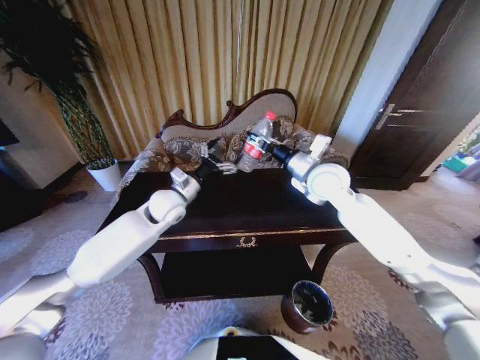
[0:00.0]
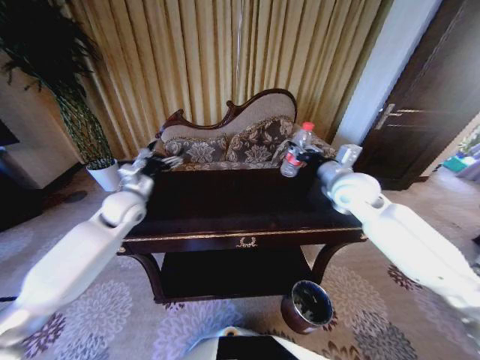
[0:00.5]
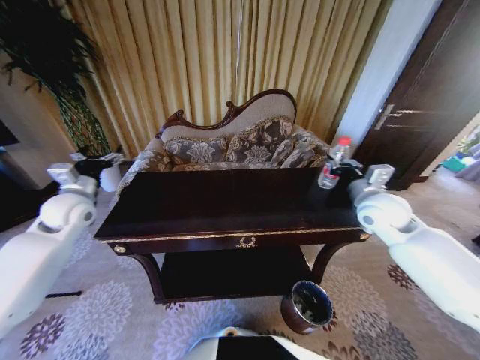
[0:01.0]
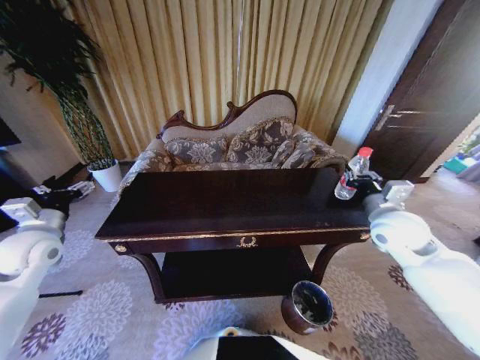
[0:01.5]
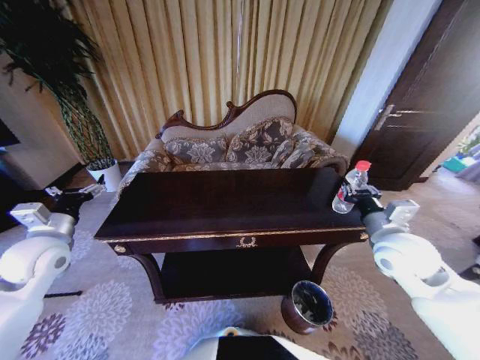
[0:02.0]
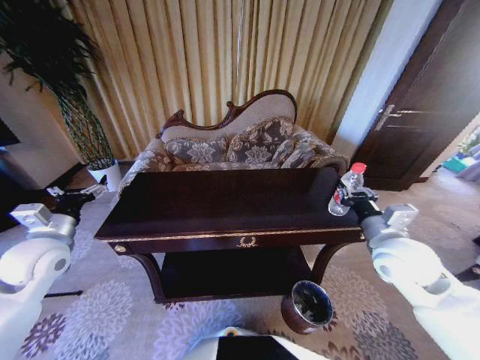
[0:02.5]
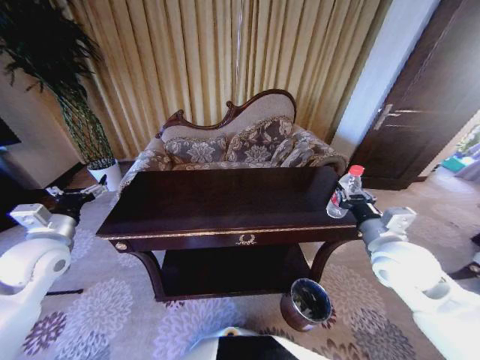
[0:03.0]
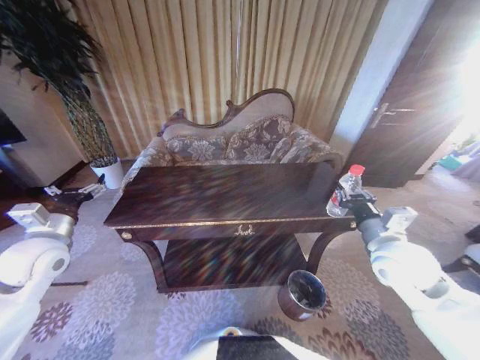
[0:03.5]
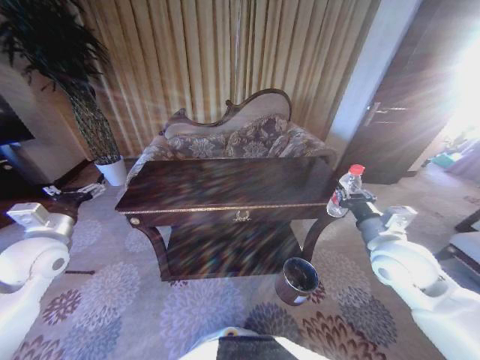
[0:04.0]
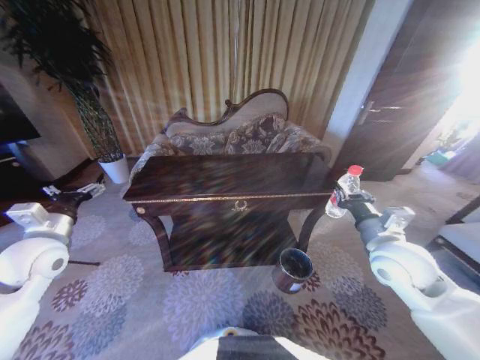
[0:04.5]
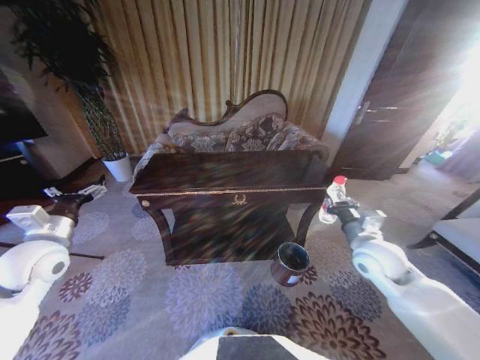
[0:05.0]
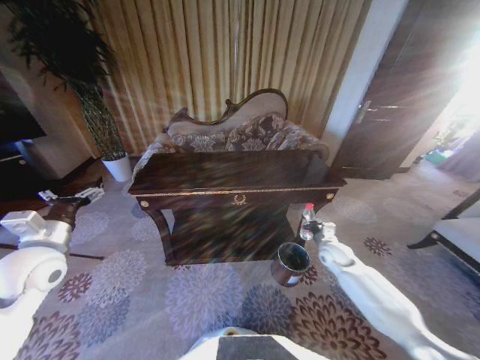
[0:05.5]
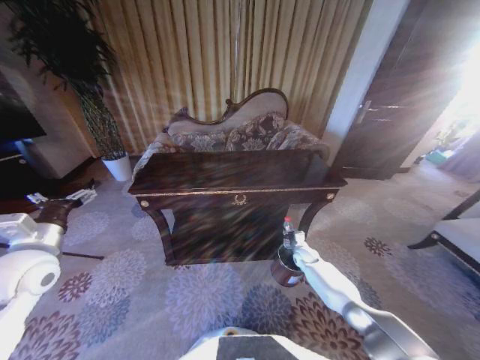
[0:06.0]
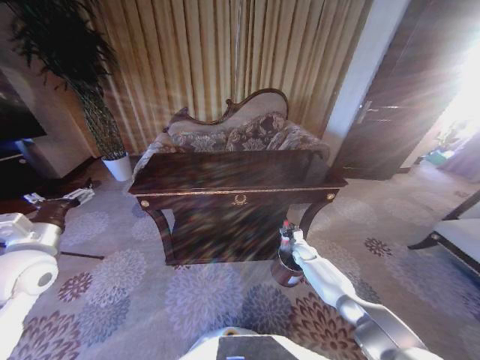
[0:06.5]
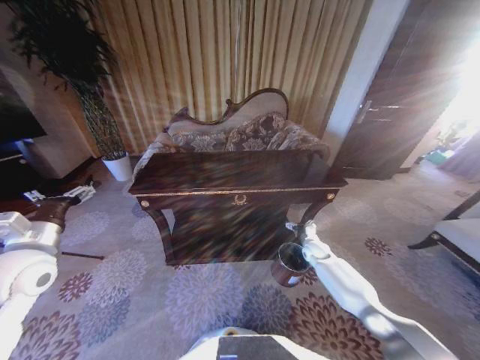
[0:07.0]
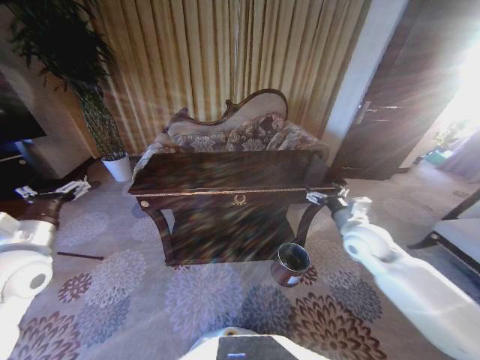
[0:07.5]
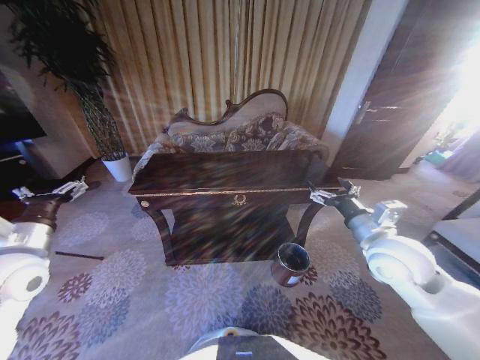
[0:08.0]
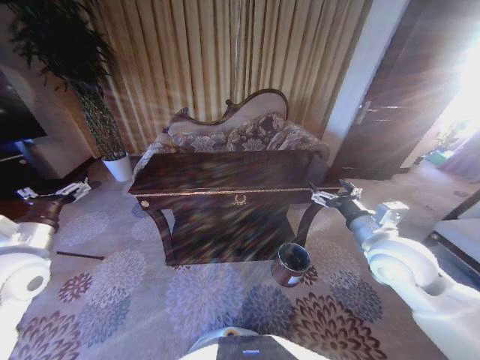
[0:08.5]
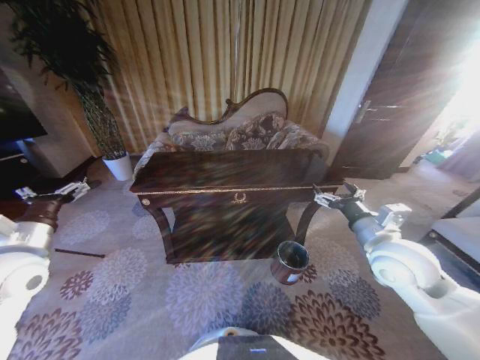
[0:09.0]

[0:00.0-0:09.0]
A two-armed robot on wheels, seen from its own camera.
Task of the whole recording: Move to the front of the table and place the trash on the table into the trash bin.
0:00.0 to 0:02.0: The right gripper goes some 20 cm backward, to the right and downward; the left gripper is displaced to the left and backward by approximately 30 cm.
0:04.5 to 0:07.0: The right gripper goes roughly 35 cm downward and forward, and opens.
0:07.0 to 0:09.0: The right gripper moves upward and backward, roughly 35 cm.

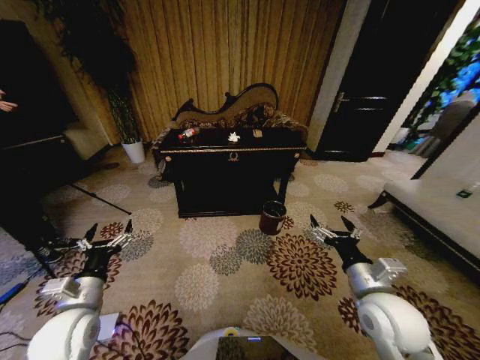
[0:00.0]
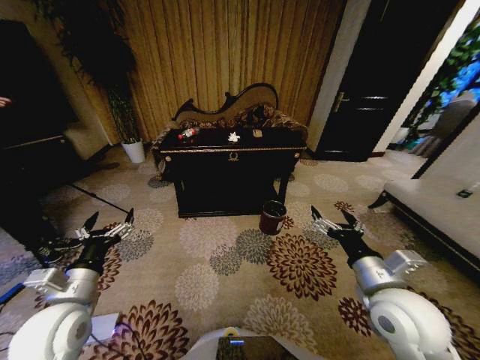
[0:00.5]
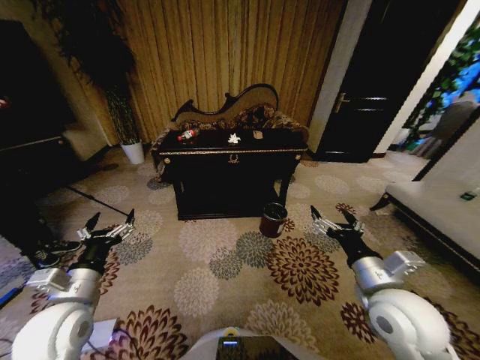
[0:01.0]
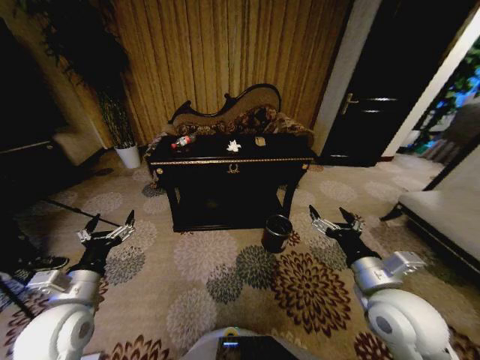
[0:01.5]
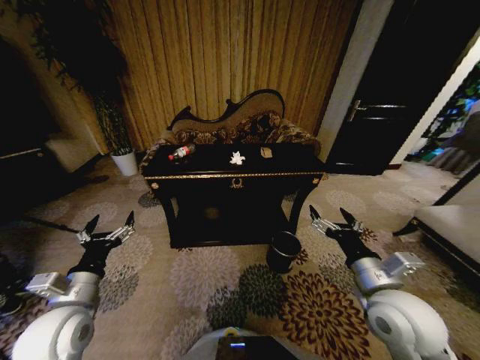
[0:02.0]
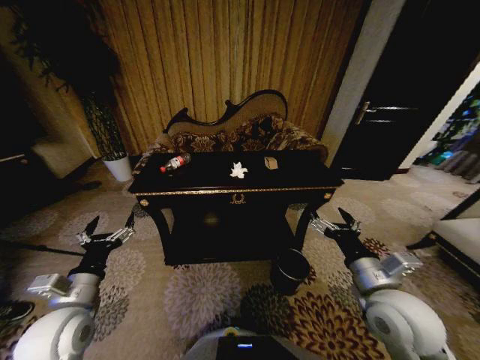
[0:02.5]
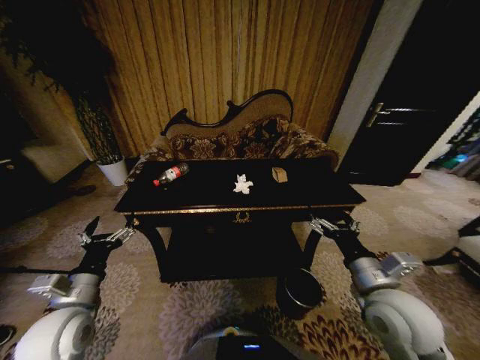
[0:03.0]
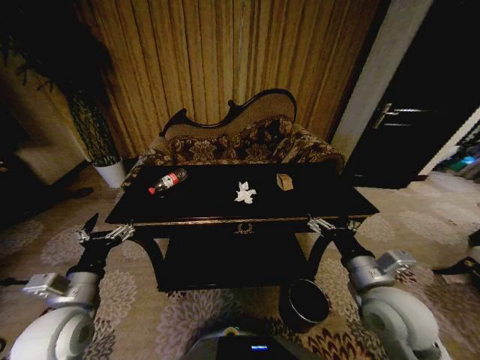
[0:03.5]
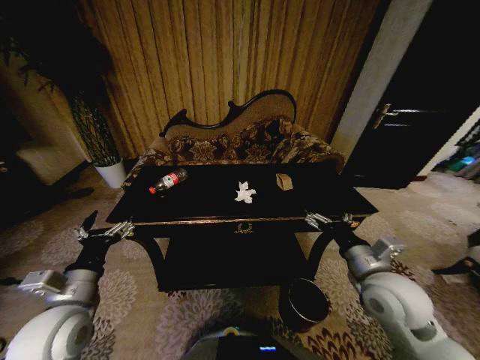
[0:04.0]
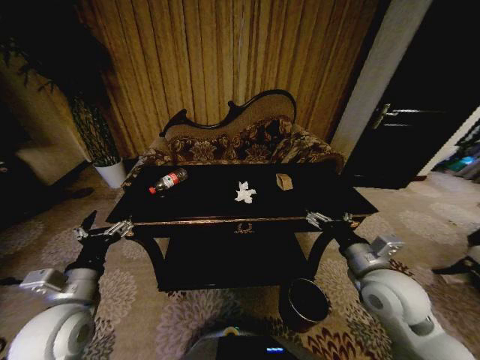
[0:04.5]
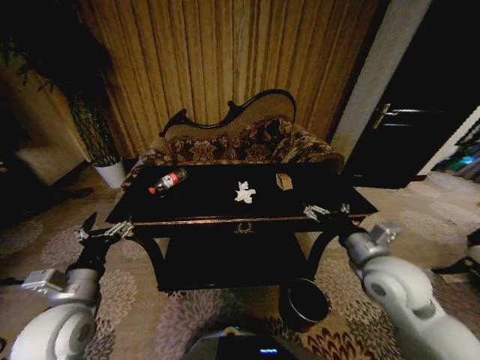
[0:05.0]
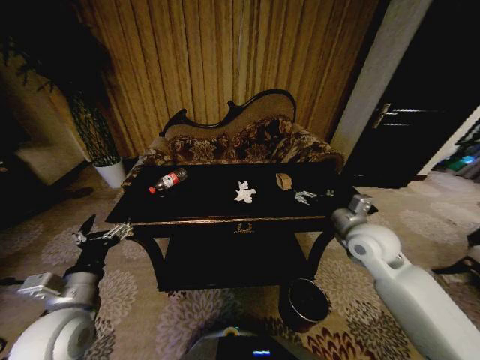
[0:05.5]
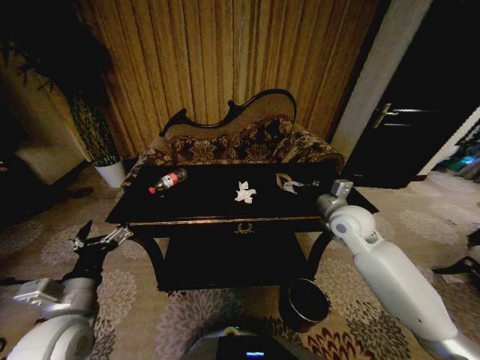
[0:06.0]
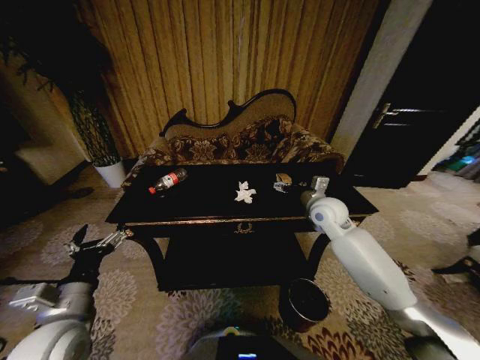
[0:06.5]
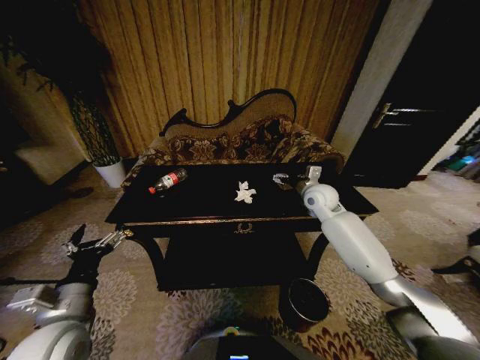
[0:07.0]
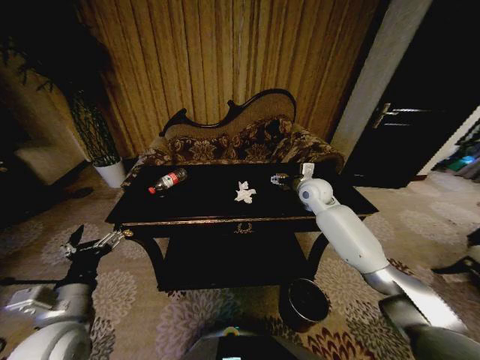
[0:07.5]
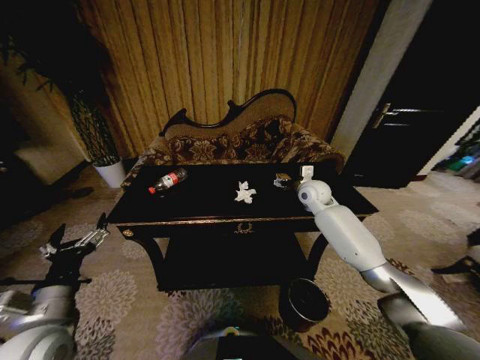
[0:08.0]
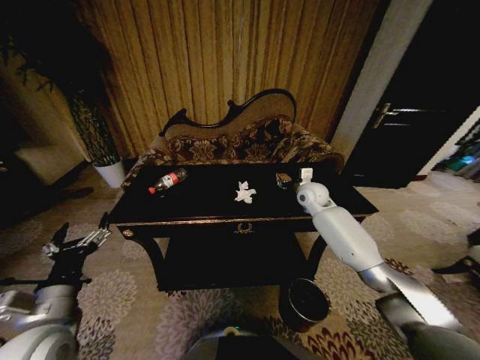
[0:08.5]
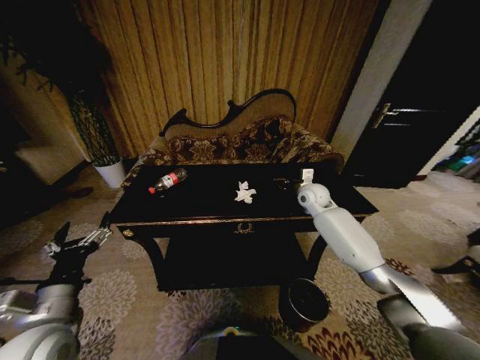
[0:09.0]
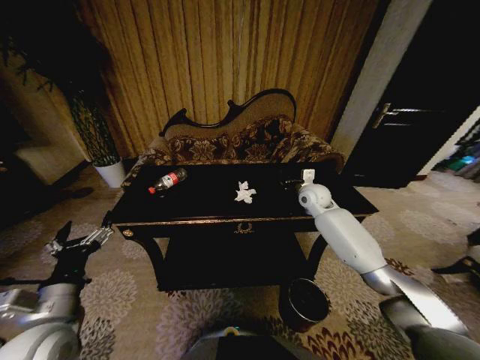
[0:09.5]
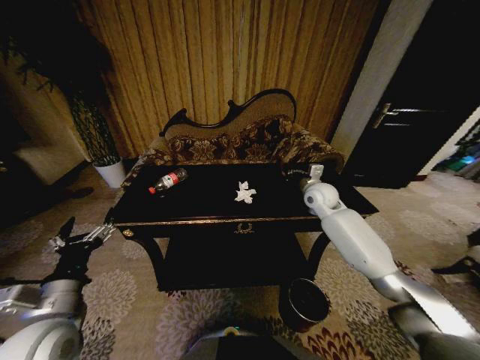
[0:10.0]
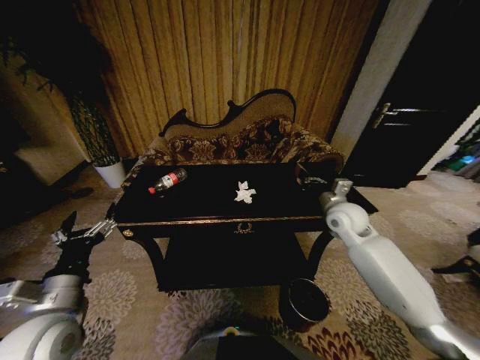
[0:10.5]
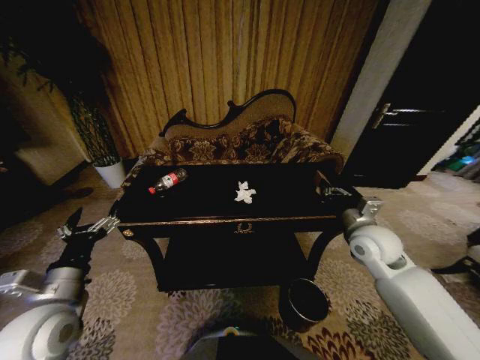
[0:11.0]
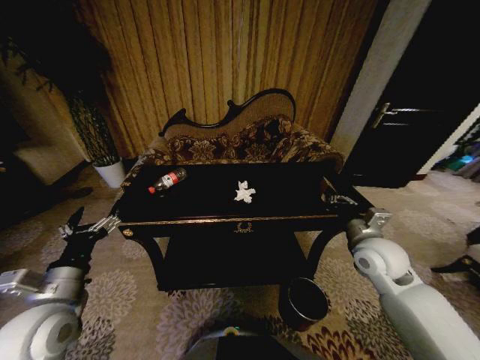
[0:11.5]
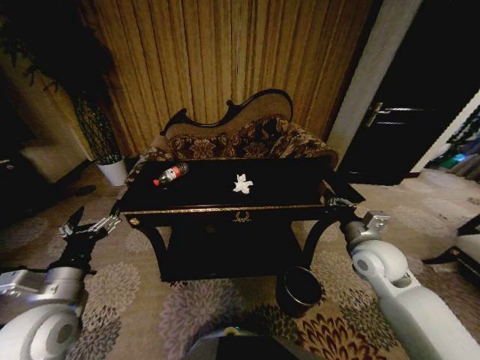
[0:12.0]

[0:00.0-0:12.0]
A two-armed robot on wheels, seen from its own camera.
Task of the whole recording: Move to the front of the table and place the trash on the table into the trash bin.
0:04.0 to 0:06.0: The right gripper heads forward, covering roughly 15 cm.
0:06.0 to 0:08.0: The right gripper shifts approximately 15 cm forward.
0:08.0 to 0:10.0: The right gripper closes.
0:10.0 to 0:12.0: The right gripper is displaced backward by about 20 cm.

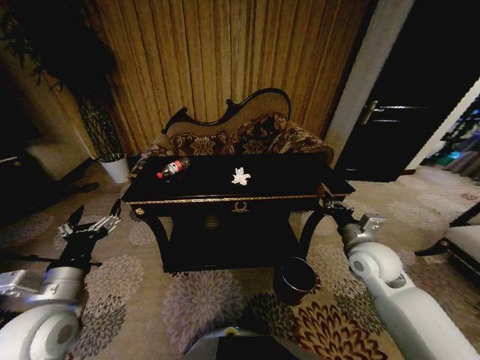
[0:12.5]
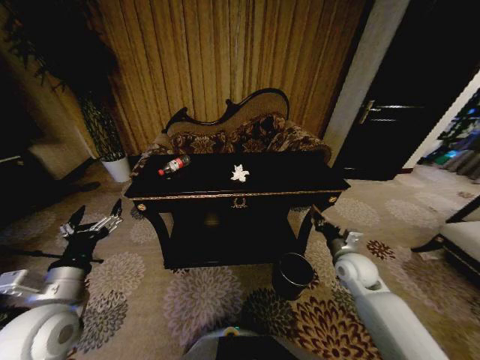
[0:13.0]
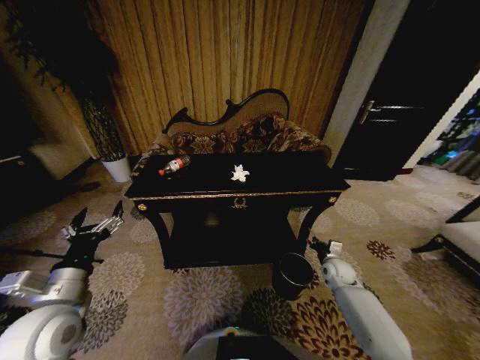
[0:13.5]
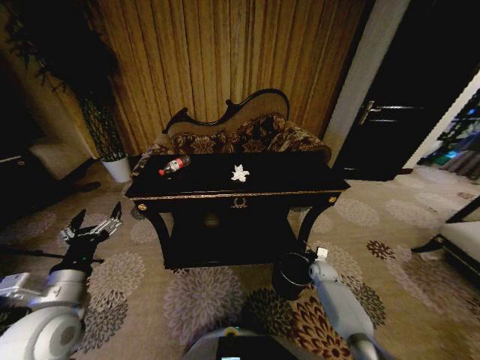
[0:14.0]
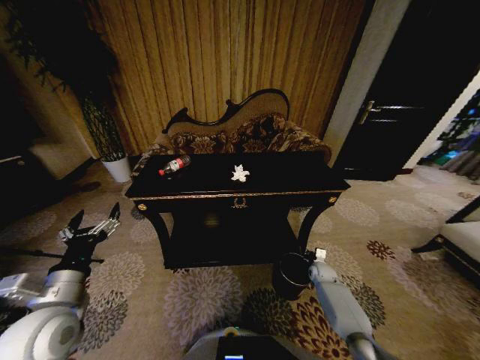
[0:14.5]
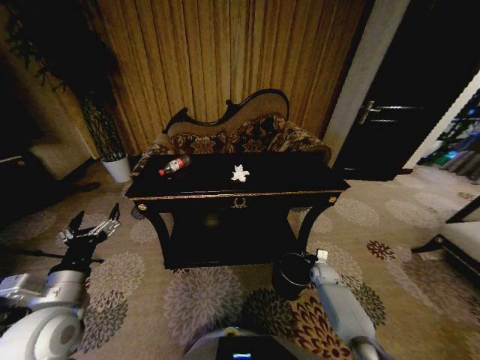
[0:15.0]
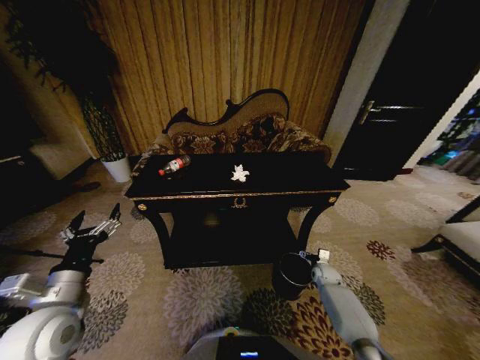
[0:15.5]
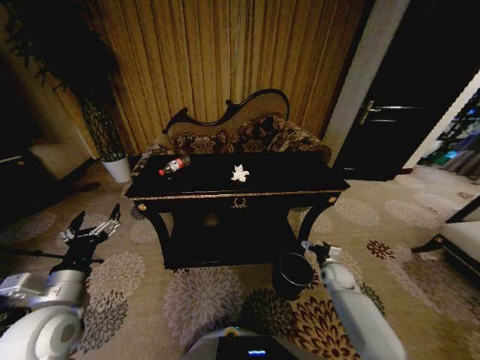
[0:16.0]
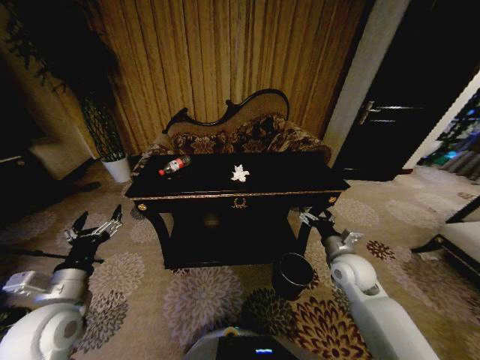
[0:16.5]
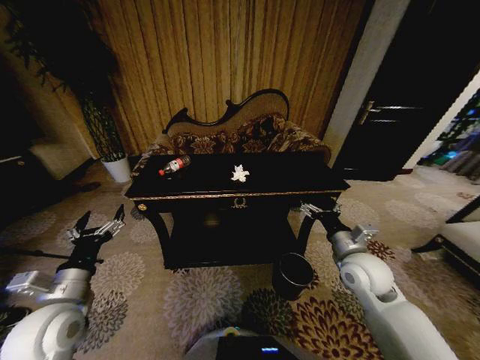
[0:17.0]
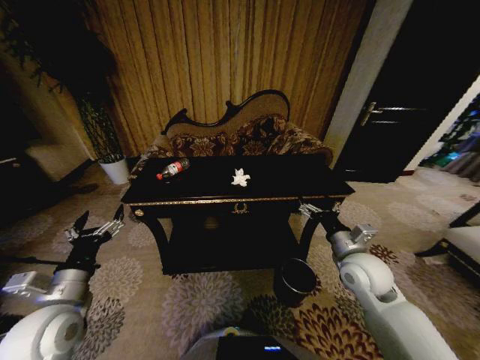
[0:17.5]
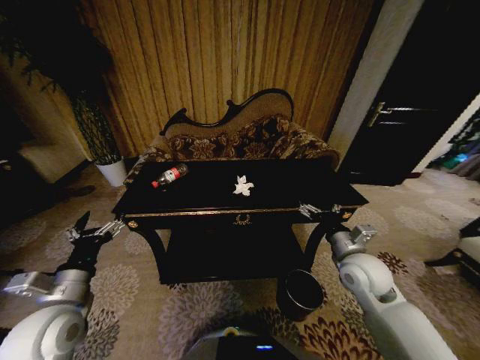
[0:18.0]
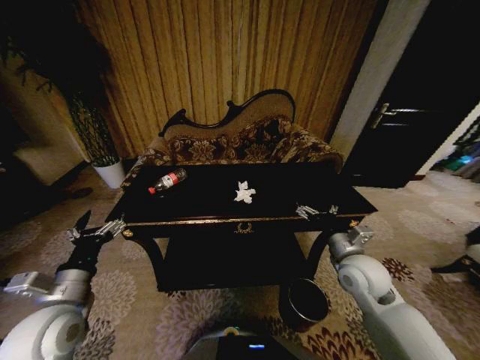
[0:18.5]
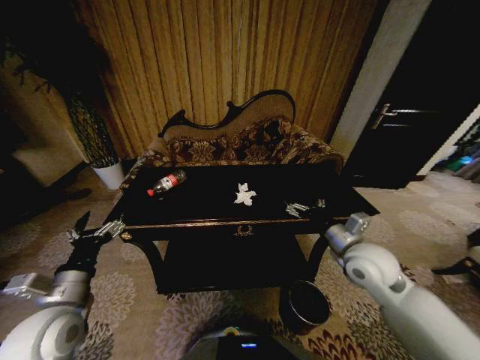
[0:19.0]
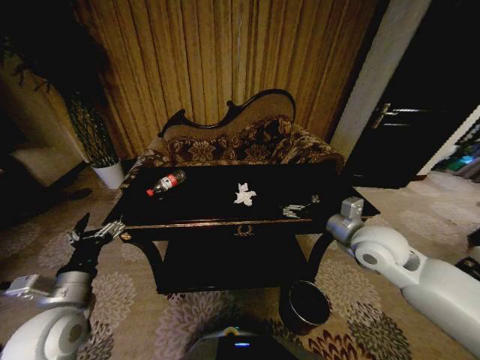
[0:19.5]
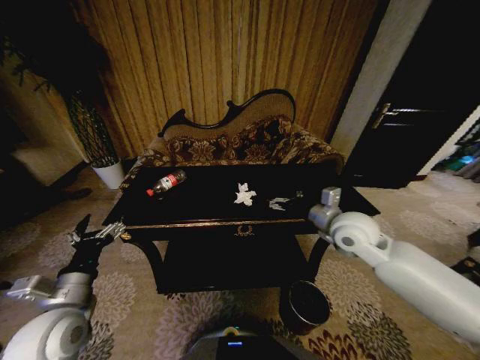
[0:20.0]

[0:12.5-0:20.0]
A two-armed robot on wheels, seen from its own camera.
Task of the whole recording: Move to the front of the table and place the trash on the table into the trash bin.
0:12.5 to 0:14.5: The right gripper heads downward, covering some 30 cm.
0:14.5 to 0:16.5: The right gripper travels upward by about 25 cm, and opens up.
0:16.5 to 0:18.0: The right gripper travels upward by some 5 cm.
0:18.0 to 0:20.0: The right gripper shifts roughly 10 cm upward and forward.
